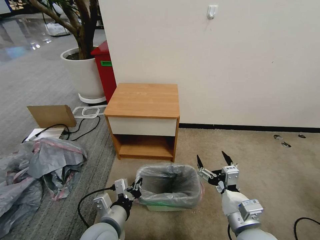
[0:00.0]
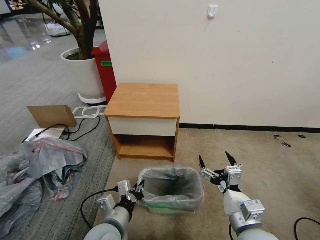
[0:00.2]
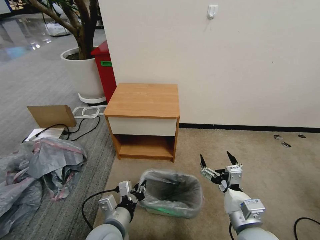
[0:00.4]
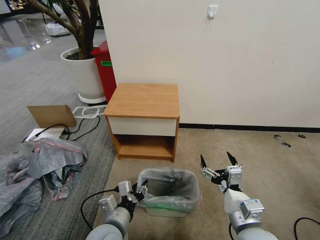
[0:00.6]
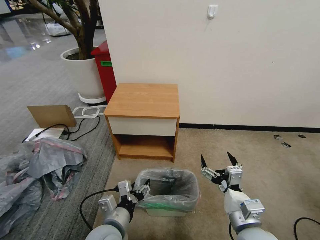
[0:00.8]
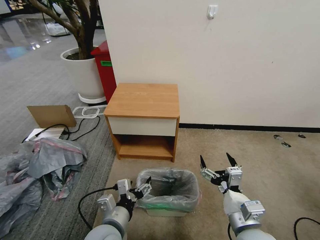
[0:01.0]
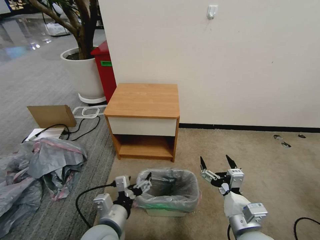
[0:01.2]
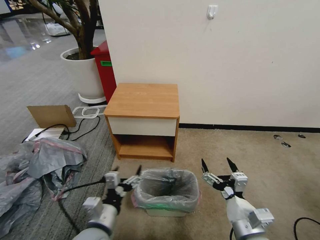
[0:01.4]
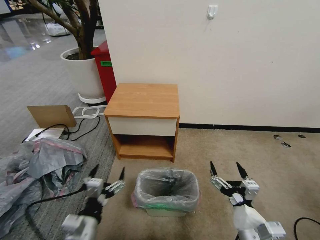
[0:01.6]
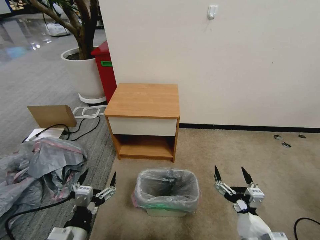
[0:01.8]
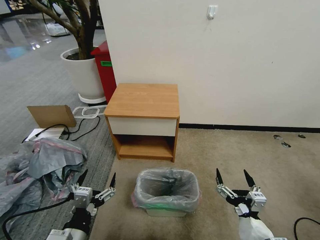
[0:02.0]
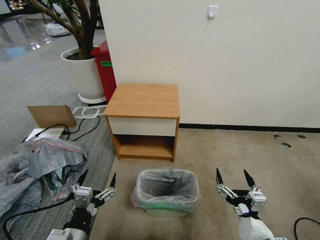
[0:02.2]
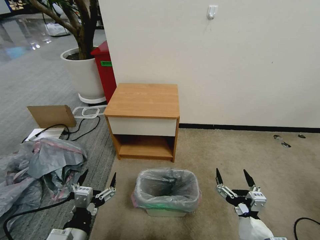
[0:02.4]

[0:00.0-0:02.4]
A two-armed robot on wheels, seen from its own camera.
Task of the whole recording: Pick up the garbage bag from the table and place it over the trash can.
0:00.0 to 0:01.2: The left gripper opens up.
0:01.2 to 0:02.4: The right gripper travels backward by about 5 cm. The left gripper is displaced to the left and backward by about 10 cm.

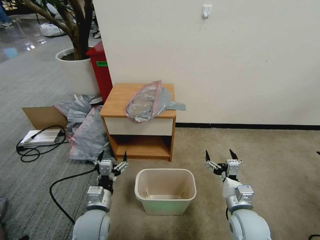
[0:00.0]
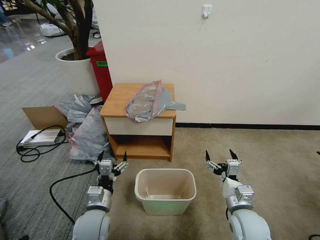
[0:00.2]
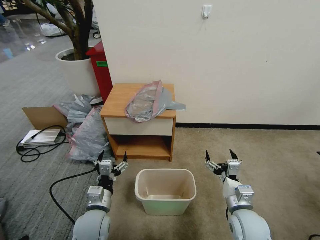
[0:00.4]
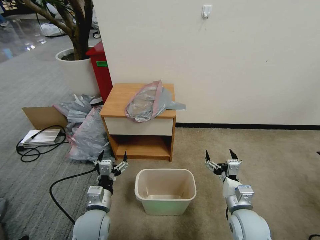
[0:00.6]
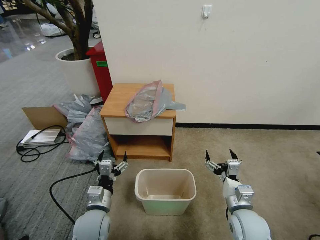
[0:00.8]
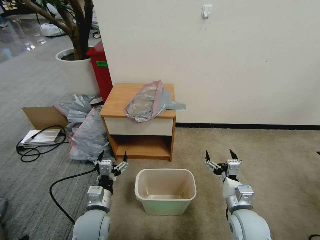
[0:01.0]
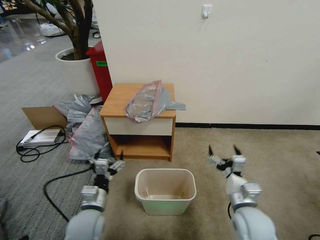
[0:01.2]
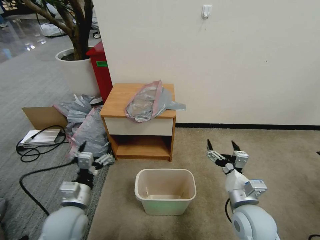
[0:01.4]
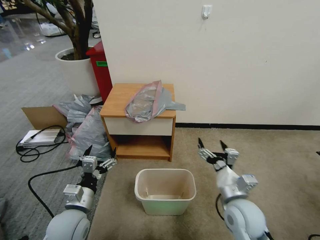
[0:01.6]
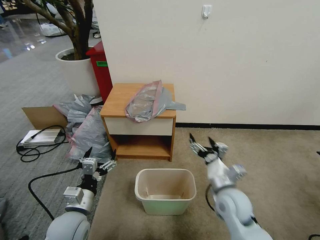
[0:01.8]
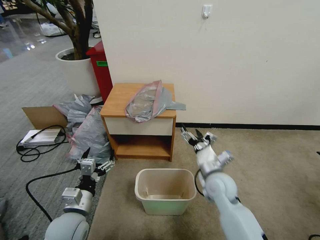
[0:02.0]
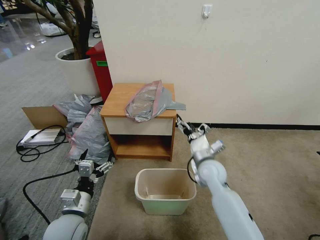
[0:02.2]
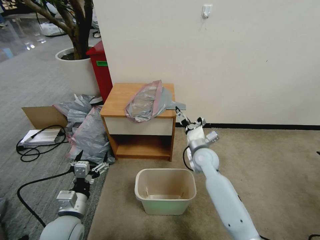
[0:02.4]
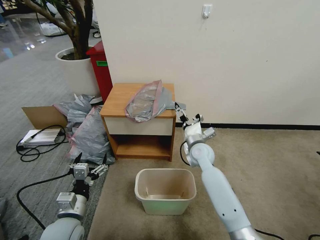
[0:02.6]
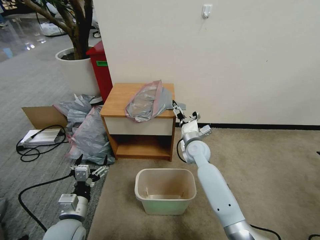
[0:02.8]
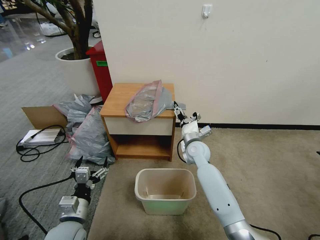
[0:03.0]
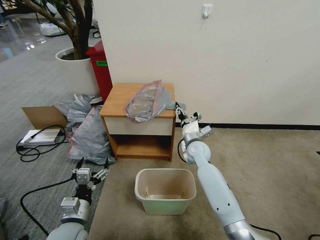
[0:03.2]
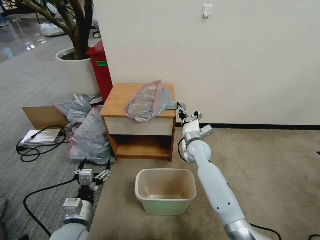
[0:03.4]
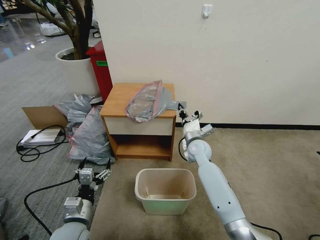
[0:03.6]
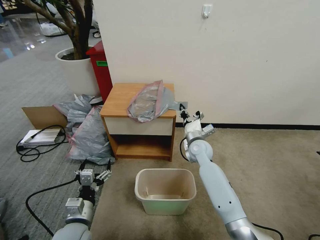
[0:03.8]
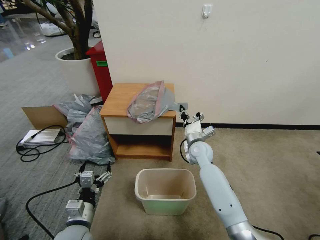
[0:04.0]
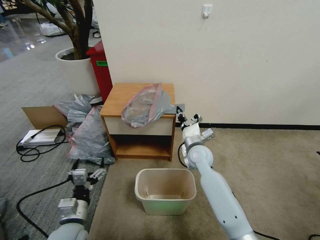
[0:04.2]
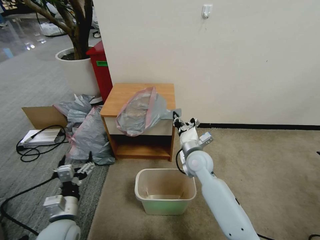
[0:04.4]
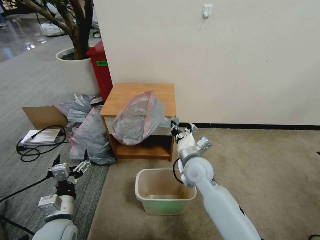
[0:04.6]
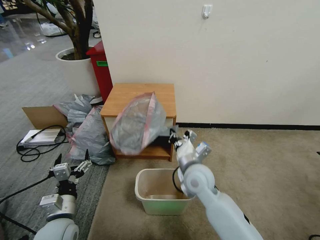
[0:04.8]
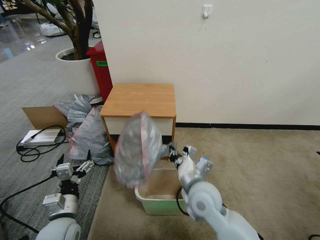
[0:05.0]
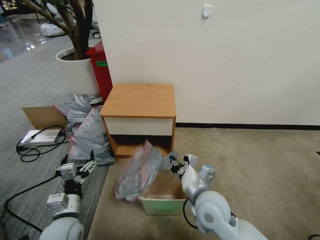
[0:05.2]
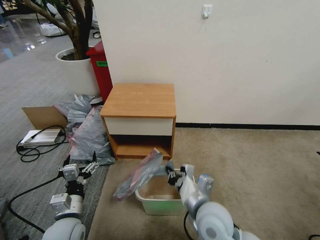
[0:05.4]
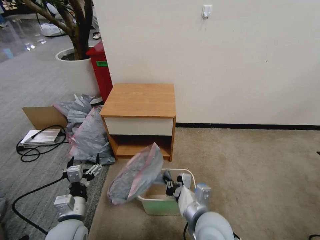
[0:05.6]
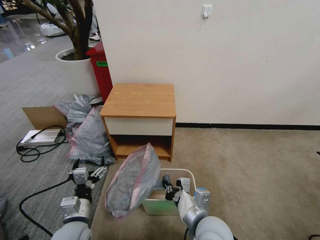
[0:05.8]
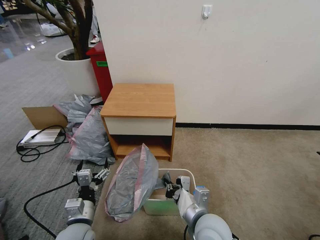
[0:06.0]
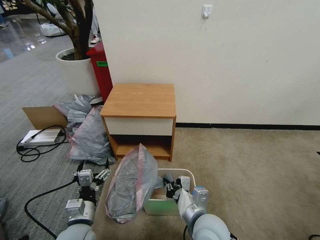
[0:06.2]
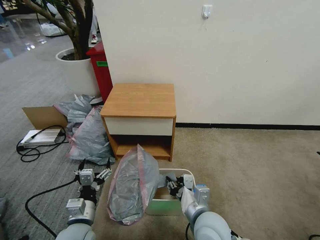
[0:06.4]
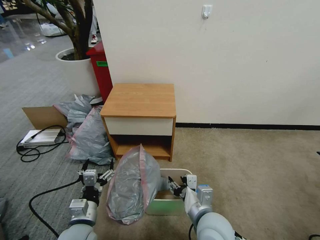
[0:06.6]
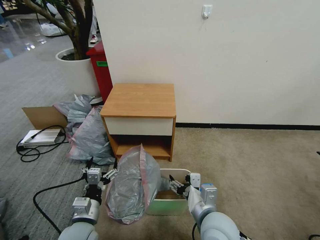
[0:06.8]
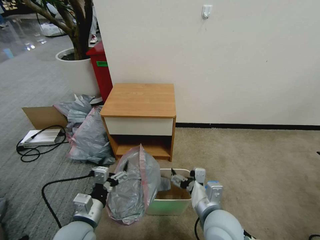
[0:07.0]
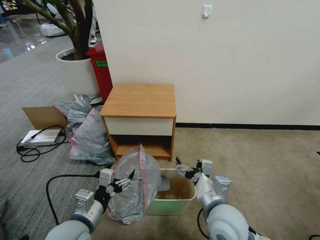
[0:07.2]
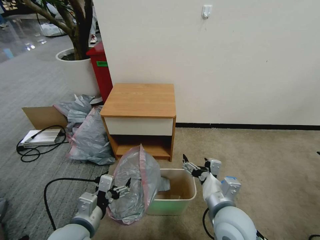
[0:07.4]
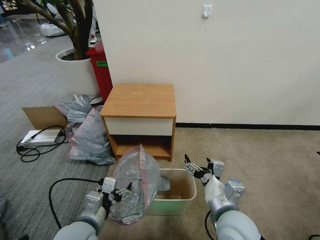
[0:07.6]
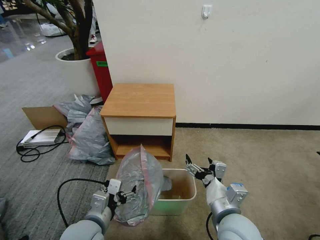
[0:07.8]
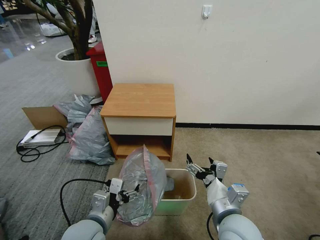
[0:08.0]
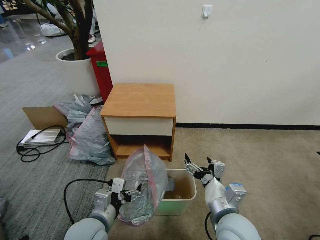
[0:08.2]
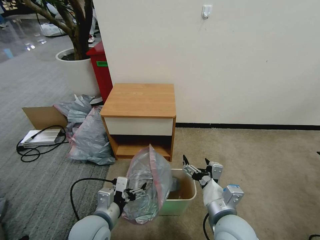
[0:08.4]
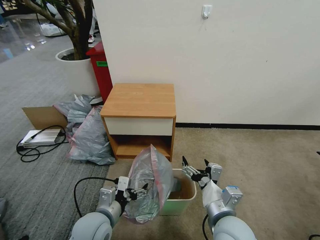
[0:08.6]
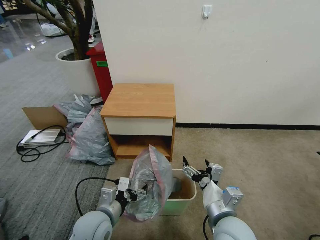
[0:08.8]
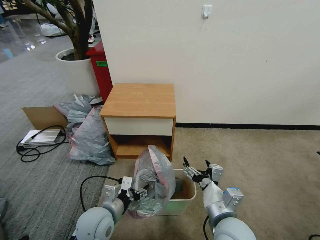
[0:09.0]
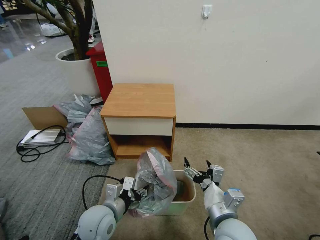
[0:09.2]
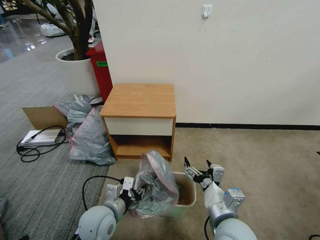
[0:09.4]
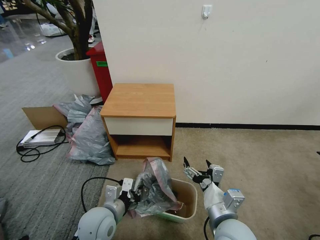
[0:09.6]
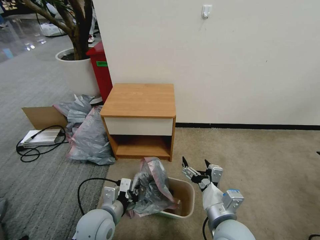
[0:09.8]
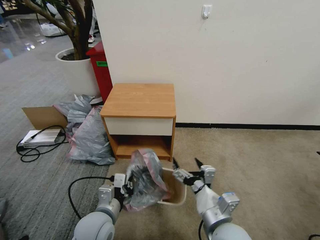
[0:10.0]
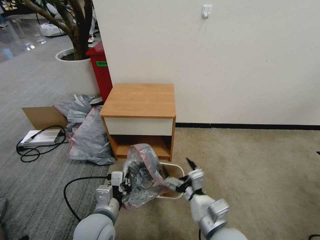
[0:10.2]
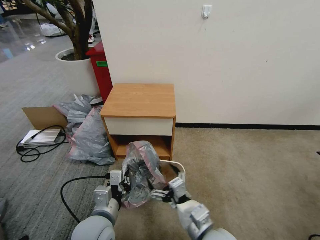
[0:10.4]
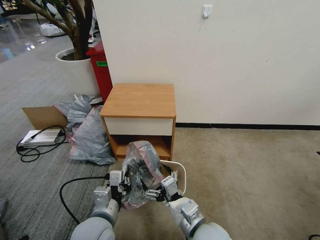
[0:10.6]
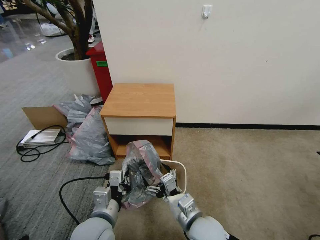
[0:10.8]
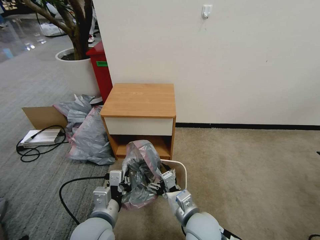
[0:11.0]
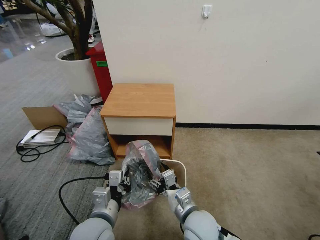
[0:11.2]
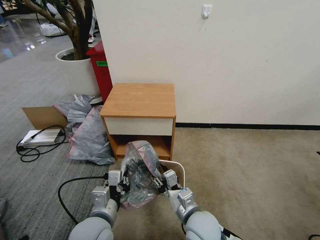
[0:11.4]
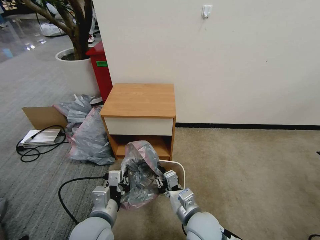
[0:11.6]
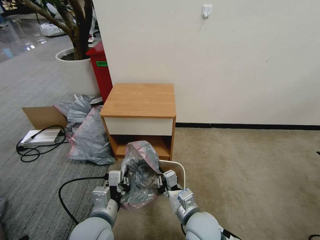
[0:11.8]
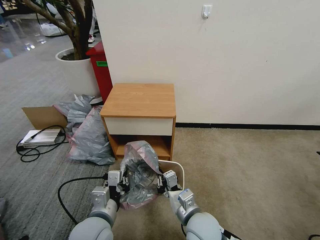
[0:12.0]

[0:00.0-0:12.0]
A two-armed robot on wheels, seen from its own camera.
Task of the whole recording: Pick up the garbage bag from the table and place it over the trash can.
0:01.6 to 0:03.0: The right gripper moves forward, some 25 cm, and closes.
0:03.0 to 0:04.4: The right gripper travels backward by about 5 cm, and closes up.
0:04.4 to 0:06.0: The right gripper heads backward, covering roughly 20 cm.
0:06.0 to 0:07.6: The right gripper changes place by some 5 cm, and opens up; the left gripper heads upward, covering roughly 5 cm.
0:07.6 to 0:09.0: The left gripper ends up approximately 5 cm from where it was.
0:09.0 to 0:10.4: The left gripper moves approximately 5 cm, and closes up.
0:10.4 to 0:12.0: The right gripper changes place by about 5 cm, and closes its fingers.

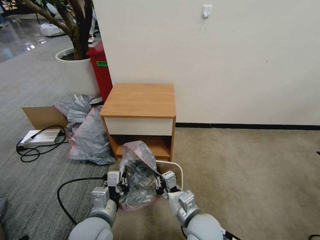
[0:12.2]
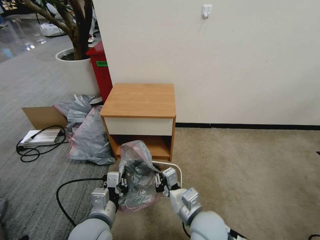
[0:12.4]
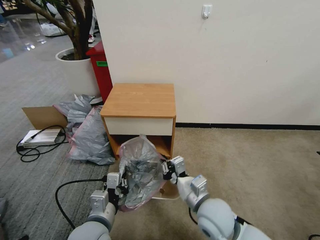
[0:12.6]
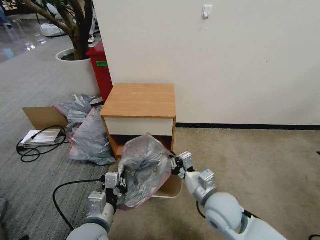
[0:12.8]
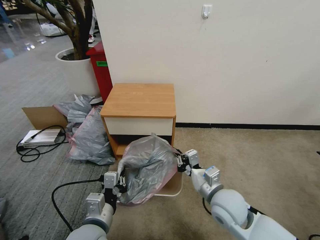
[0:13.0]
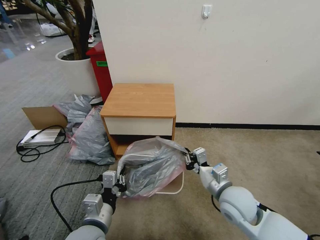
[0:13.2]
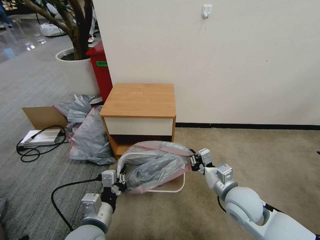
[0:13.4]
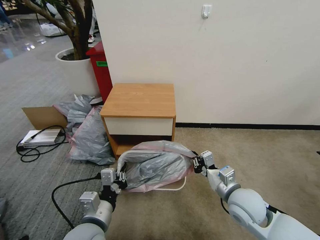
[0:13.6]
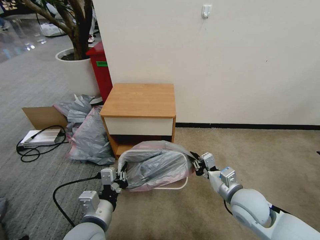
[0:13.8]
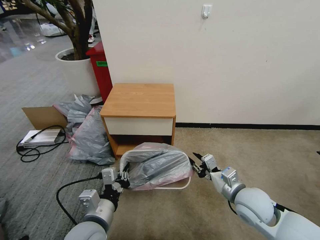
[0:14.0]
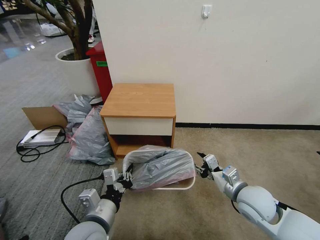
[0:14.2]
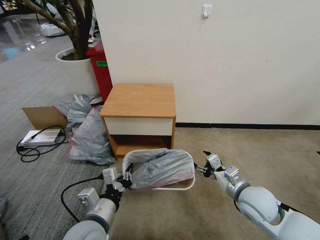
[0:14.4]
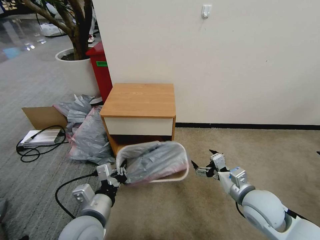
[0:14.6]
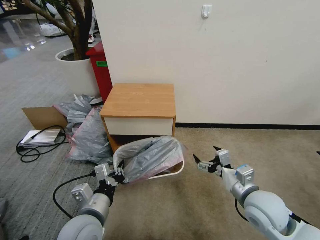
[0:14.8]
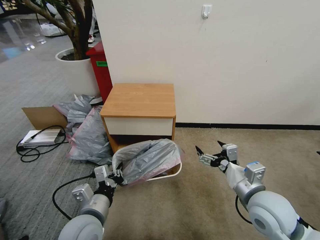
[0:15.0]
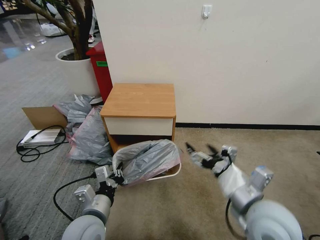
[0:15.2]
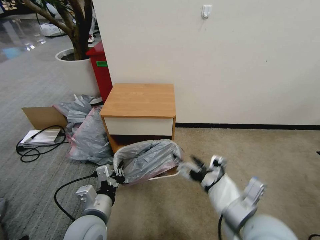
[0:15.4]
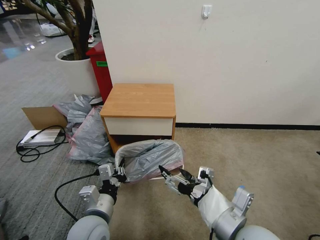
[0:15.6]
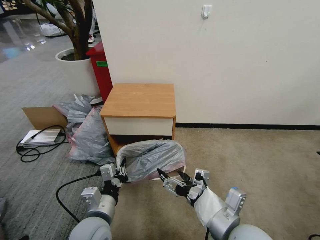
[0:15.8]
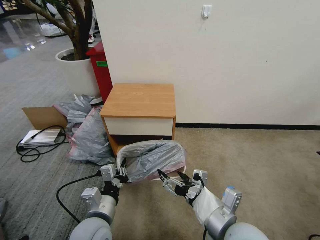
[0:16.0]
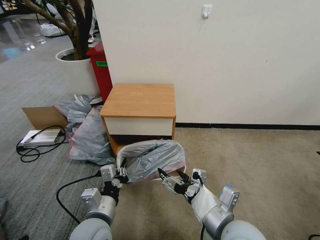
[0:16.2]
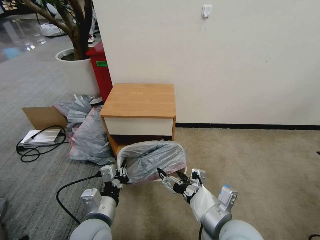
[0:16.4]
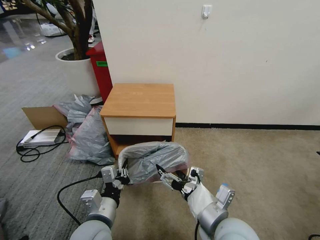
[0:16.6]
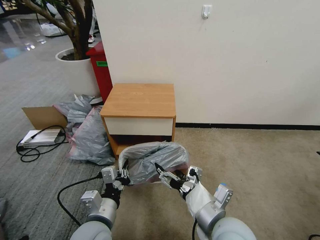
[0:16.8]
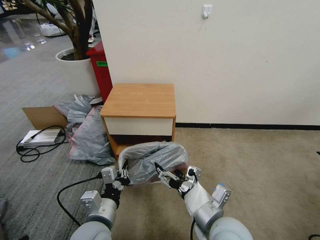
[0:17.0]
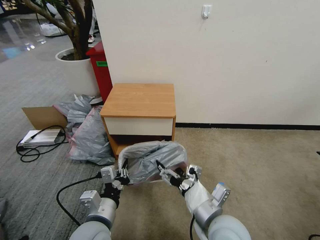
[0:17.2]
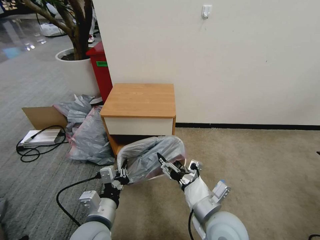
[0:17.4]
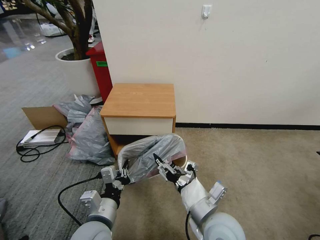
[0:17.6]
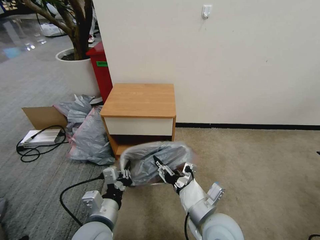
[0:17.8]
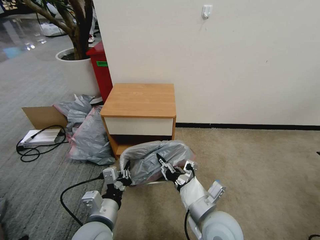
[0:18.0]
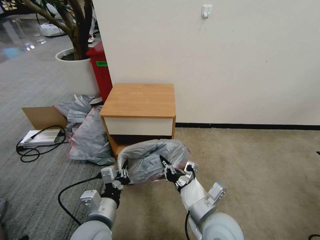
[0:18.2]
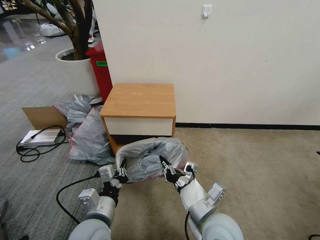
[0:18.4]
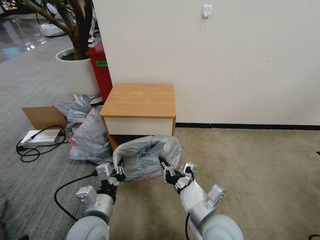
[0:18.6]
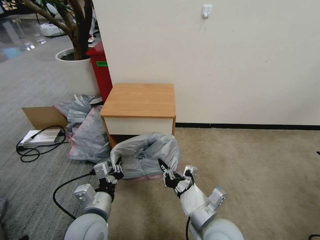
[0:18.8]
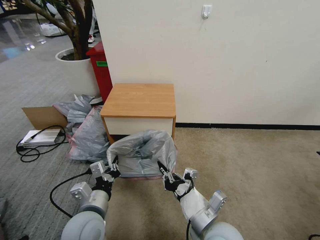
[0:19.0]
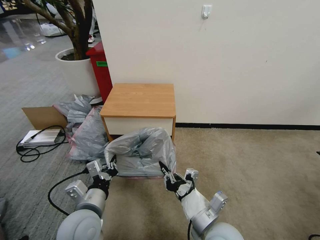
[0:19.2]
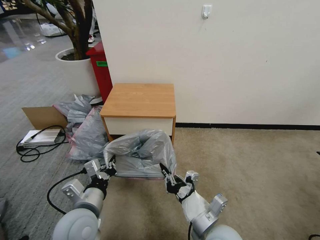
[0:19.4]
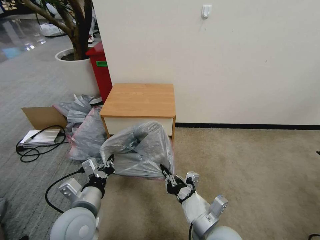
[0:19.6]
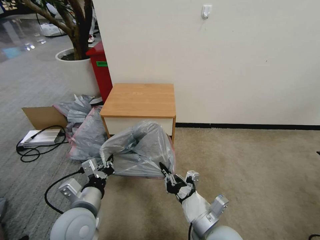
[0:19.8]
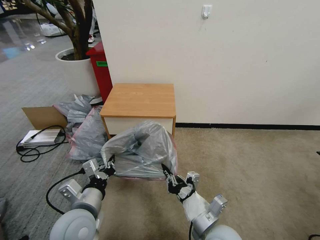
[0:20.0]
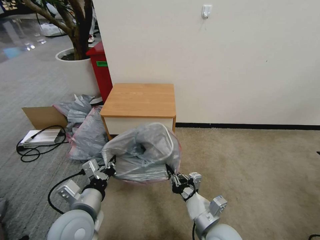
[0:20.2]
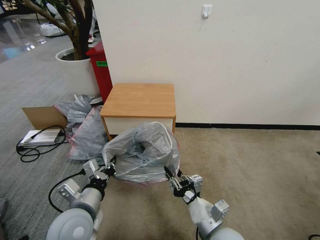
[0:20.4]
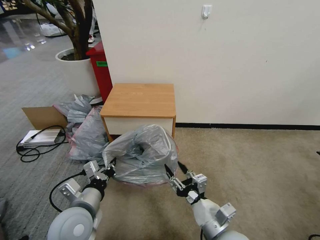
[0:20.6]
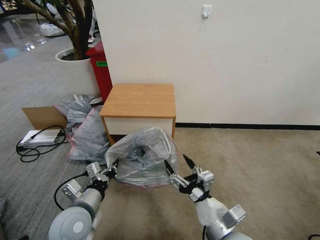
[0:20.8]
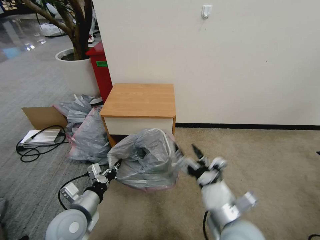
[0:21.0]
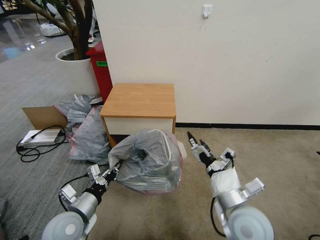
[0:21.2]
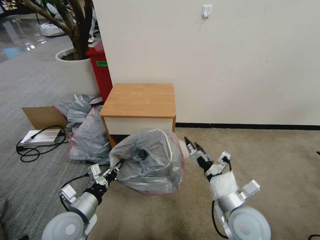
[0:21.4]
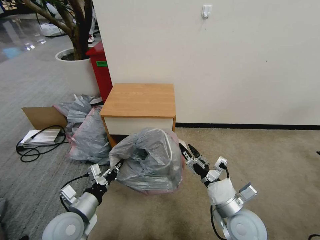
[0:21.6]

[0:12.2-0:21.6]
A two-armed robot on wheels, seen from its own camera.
Task of the whole recording: Pick up the garbage bag from the table and place it over the trash can.
0:12.2 to 0:13.8: The right gripper moves to the right and forward, about 15 cm.
0:13.8 to 0:15.4: The right gripper travels upward and backward by roughly 15 cm, and opens up.
0:15.4 to 0:17.0: The right gripper shifts approximately 10 cm downward and to the left.
0:17.0 to 0:18.4: The right gripper closes.
0:18.4 to 0:20.0: The grippers stay close to where they were, moving slightly.
0:20.0 to 0:21.6: The left gripper shifts approximately 10 cm downward and to the left; the right gripper is displaced to the right by roughly 5 cm, travels upward and back again, approximately 5 cm each way, and opens up.
